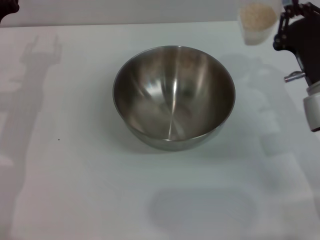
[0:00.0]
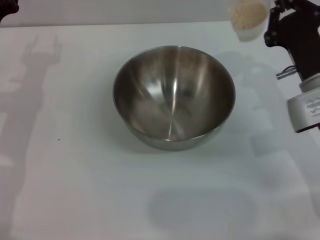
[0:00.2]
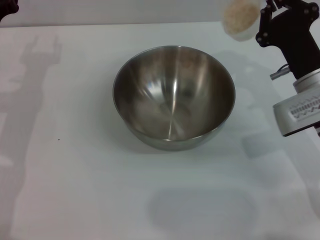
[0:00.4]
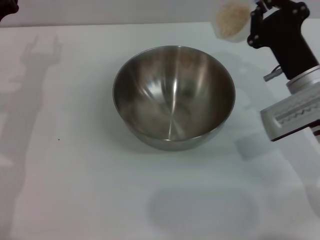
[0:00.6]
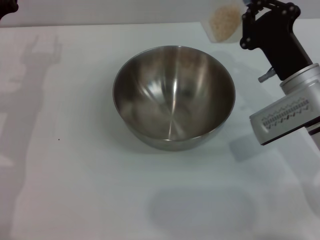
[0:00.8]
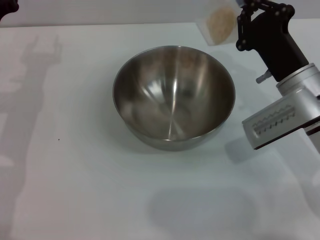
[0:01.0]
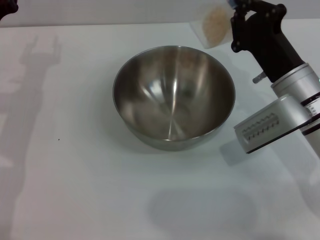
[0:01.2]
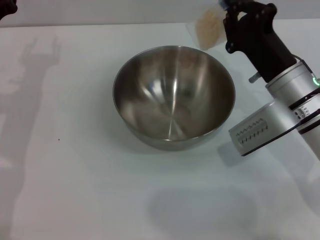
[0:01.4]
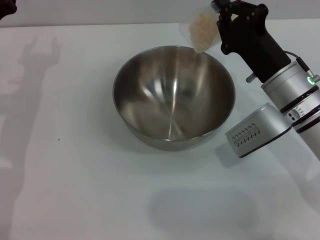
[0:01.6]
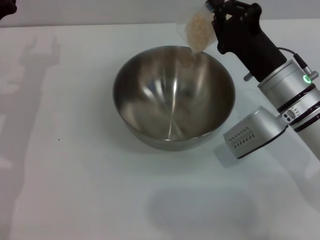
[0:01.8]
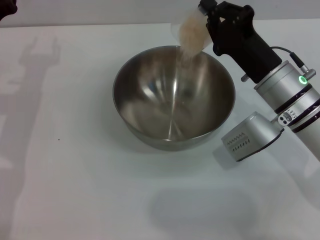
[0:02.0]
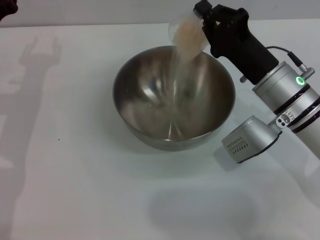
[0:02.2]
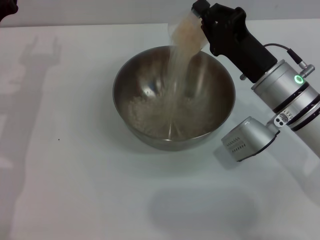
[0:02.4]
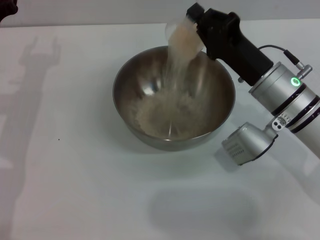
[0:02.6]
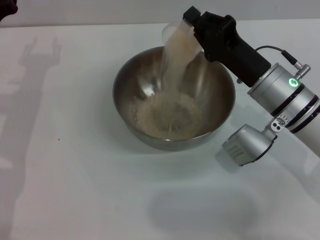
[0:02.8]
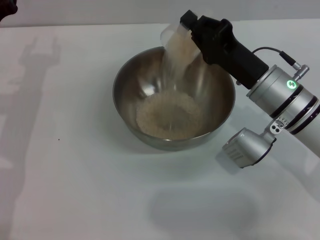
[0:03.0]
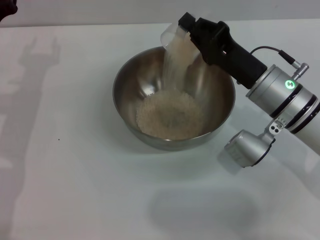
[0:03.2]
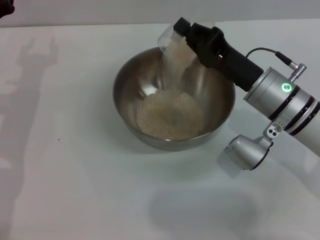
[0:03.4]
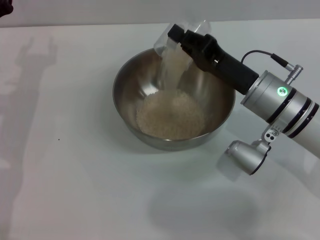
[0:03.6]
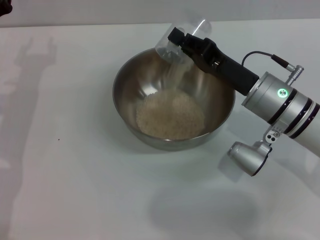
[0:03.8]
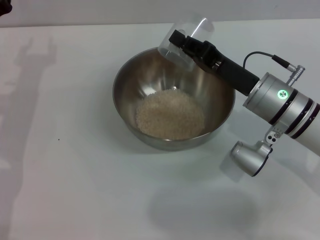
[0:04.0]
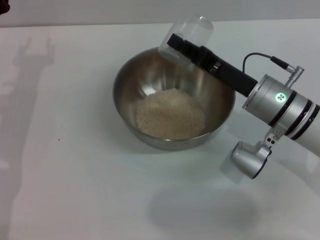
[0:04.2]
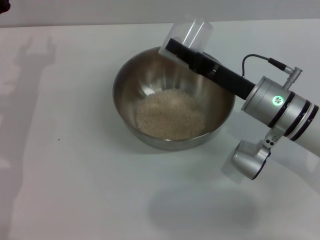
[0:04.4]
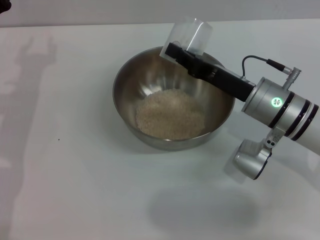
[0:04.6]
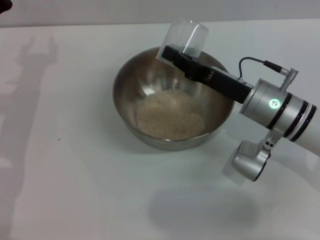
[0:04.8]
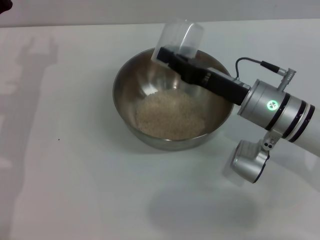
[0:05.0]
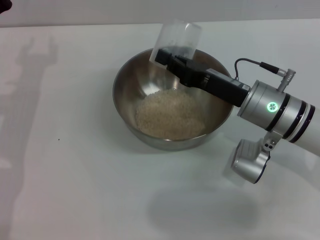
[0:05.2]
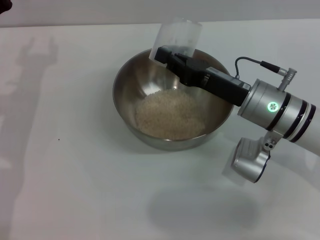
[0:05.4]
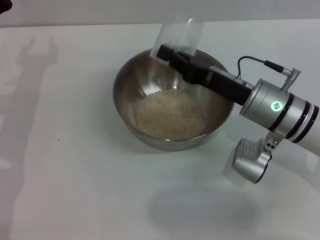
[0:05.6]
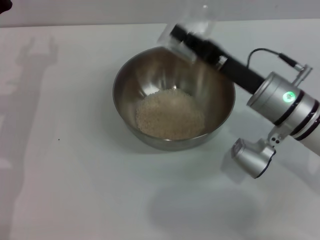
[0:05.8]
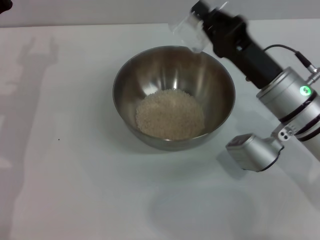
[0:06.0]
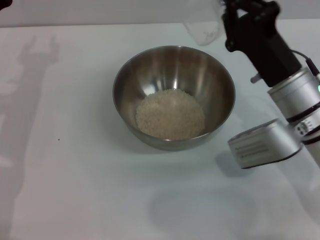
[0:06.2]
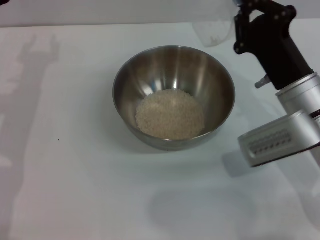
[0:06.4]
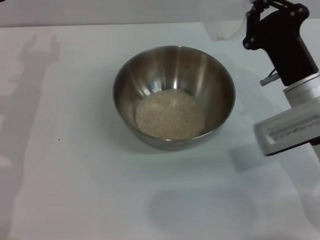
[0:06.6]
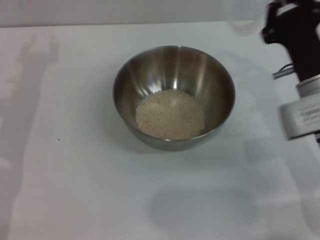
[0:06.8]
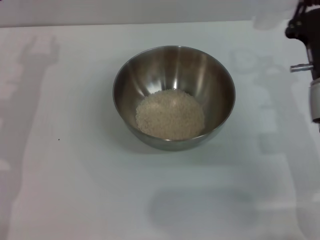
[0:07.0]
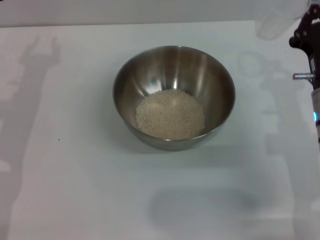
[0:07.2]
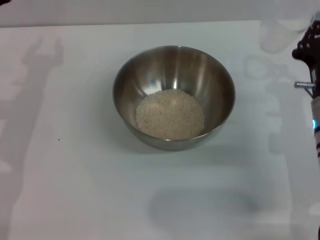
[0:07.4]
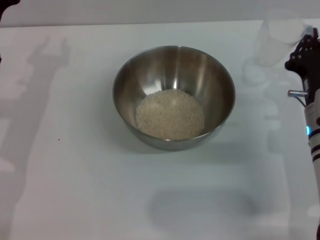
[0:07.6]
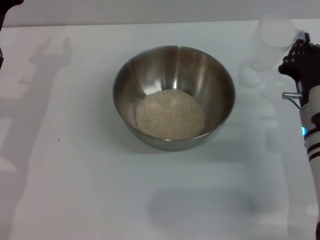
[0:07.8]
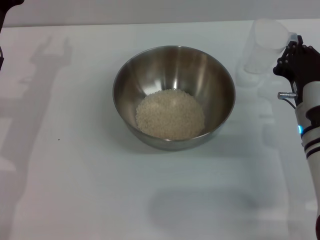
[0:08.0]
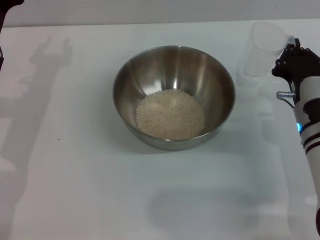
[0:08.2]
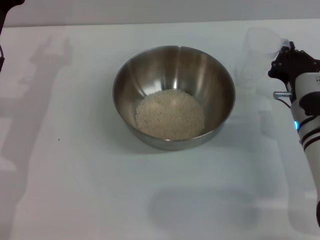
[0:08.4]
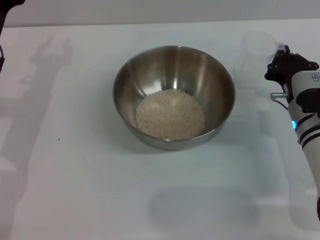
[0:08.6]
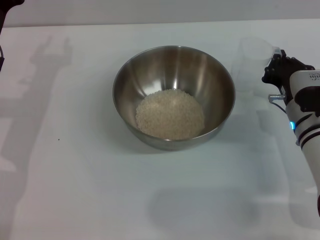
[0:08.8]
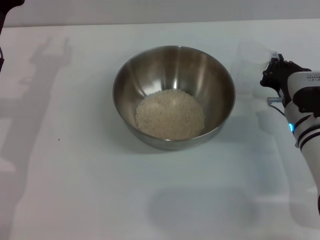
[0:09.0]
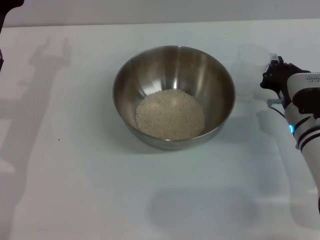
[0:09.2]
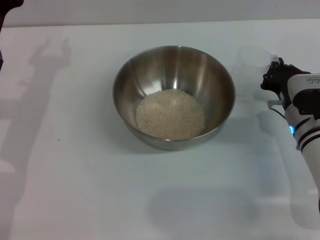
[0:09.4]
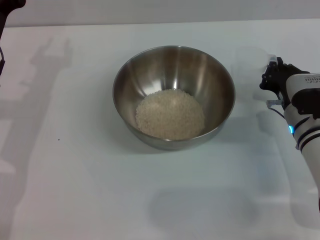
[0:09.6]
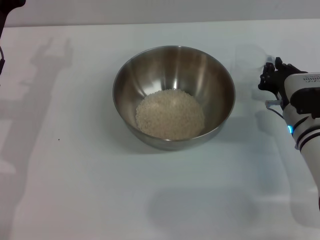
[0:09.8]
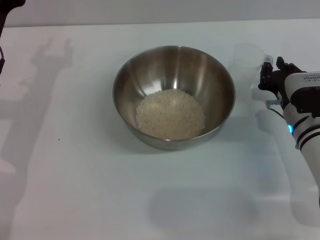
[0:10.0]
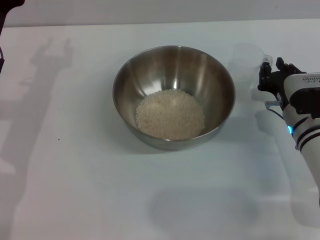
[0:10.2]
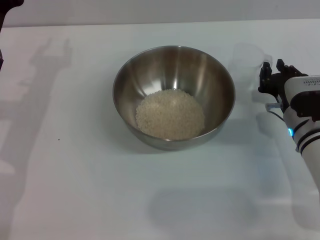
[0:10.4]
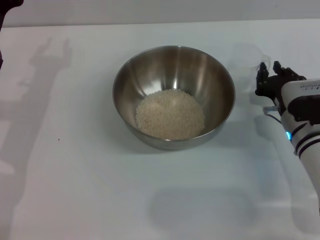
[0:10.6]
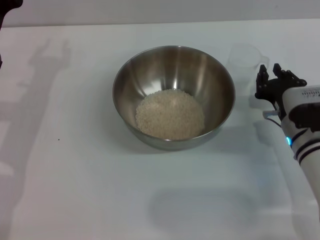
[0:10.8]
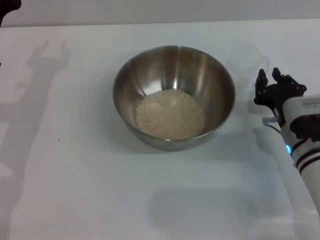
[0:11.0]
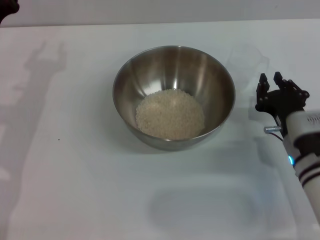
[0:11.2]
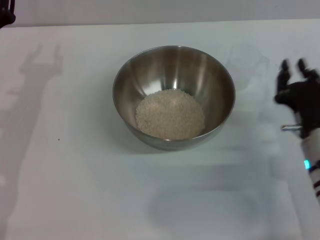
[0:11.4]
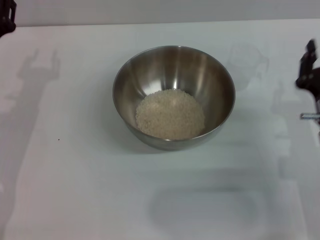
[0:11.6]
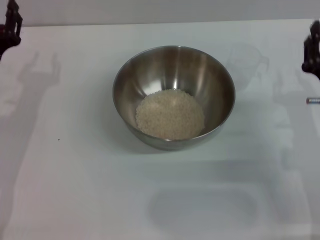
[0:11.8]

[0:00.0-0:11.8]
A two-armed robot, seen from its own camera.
Task of the whole recording: Place the bowl in the middle of the table with one hand and pour the rice from the grain cup into it with the other hand.
Step, 0:00.0 to 0:04.0: Pour the rice from the cup into the bowl with the right gripper.
Step, 0:04.4 to 0:10.8: Place the cup on the table with the right gripper.
0:06.0 to 0:07.4: The right gripper moves some 5 cm.
0:07.4 to 0:08.8: The right gripper shifts by approximately 5 cm.
0:08.8 to 0:10.4: Both grippers stay about where they are.
0:10.4 to 0:11.8: The right gripper heads backward, covering approximately 5 cm.

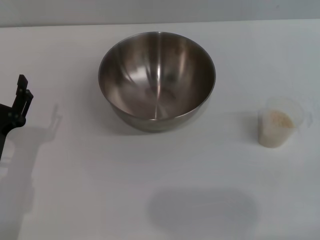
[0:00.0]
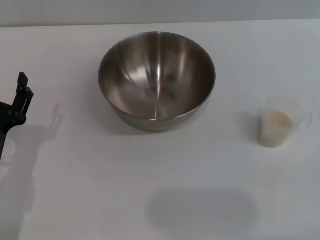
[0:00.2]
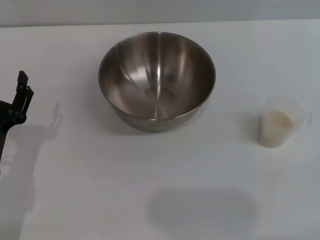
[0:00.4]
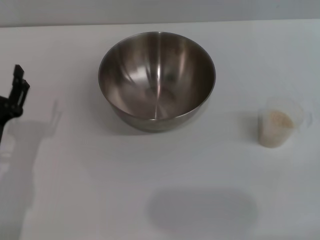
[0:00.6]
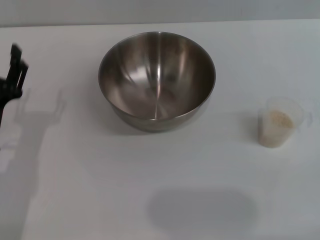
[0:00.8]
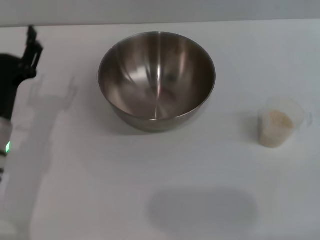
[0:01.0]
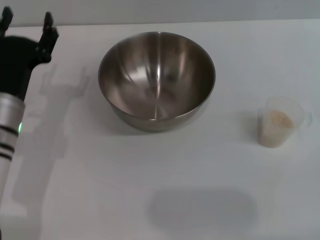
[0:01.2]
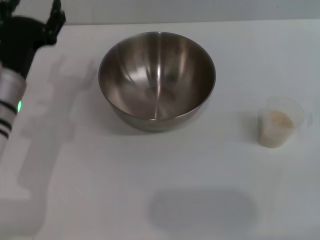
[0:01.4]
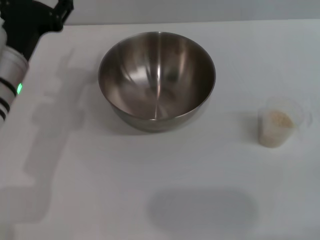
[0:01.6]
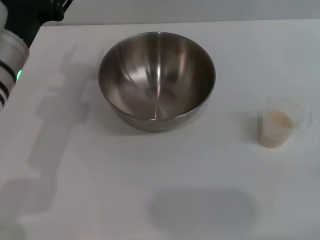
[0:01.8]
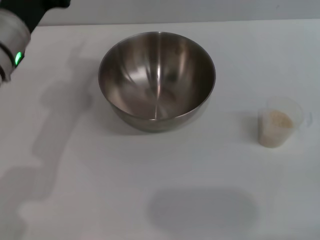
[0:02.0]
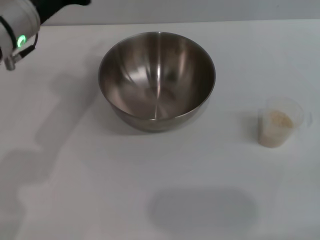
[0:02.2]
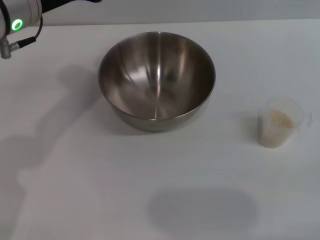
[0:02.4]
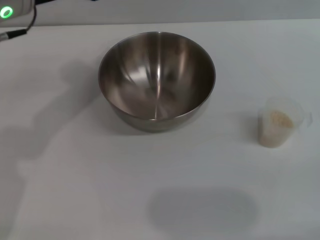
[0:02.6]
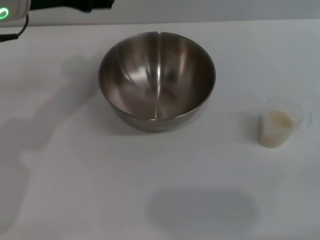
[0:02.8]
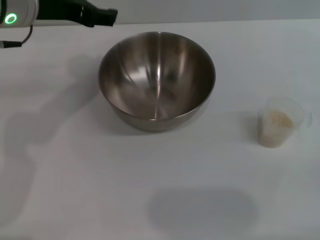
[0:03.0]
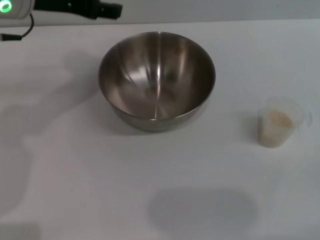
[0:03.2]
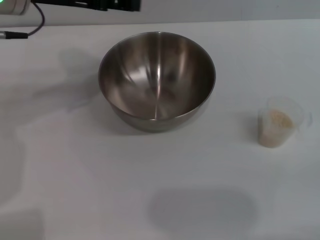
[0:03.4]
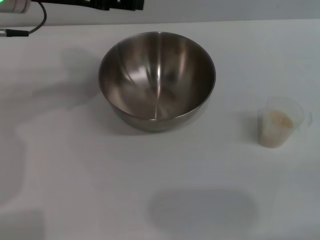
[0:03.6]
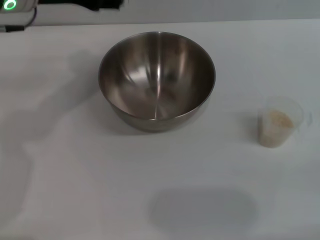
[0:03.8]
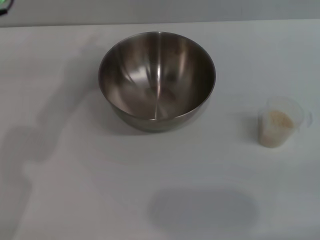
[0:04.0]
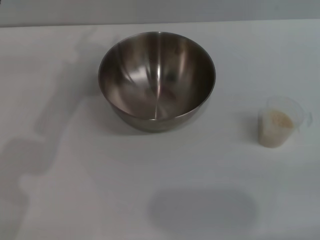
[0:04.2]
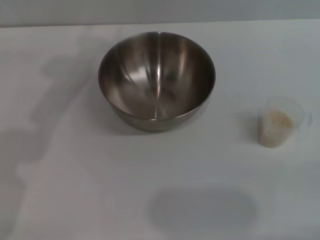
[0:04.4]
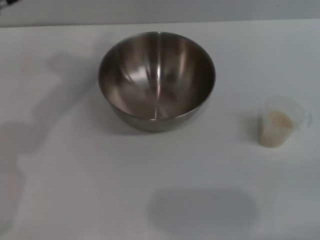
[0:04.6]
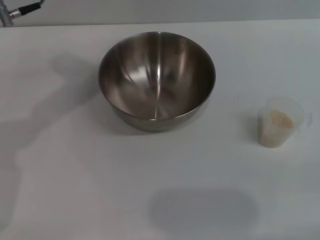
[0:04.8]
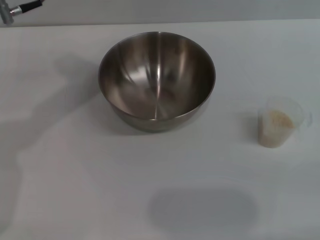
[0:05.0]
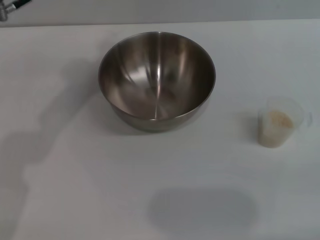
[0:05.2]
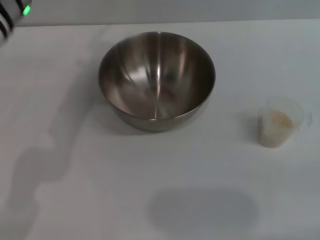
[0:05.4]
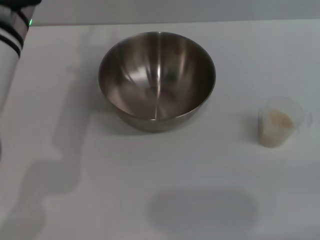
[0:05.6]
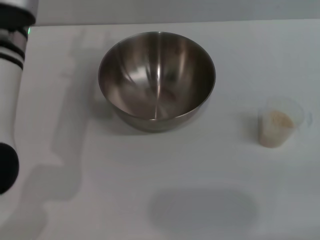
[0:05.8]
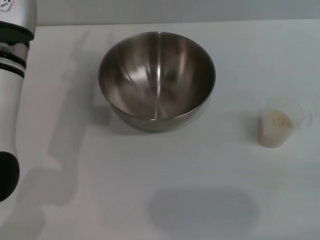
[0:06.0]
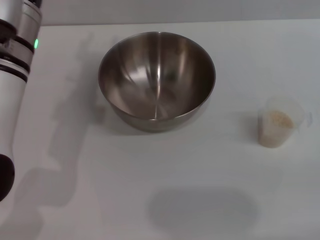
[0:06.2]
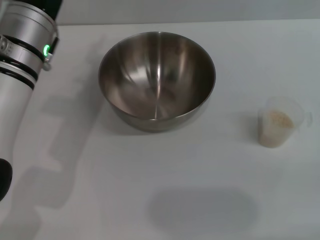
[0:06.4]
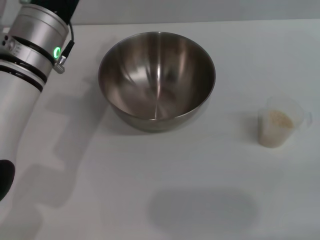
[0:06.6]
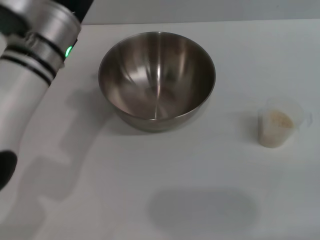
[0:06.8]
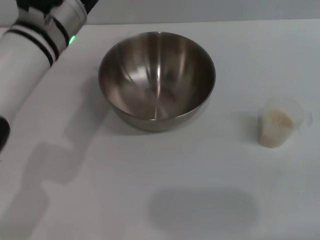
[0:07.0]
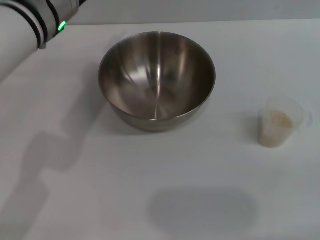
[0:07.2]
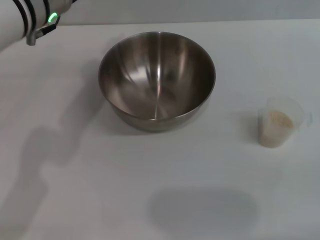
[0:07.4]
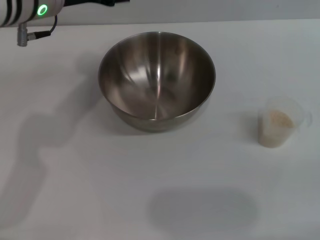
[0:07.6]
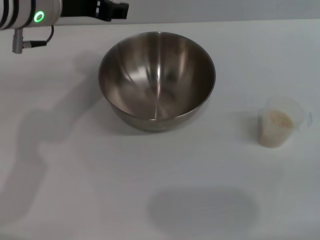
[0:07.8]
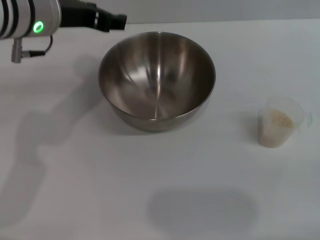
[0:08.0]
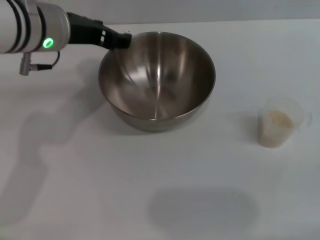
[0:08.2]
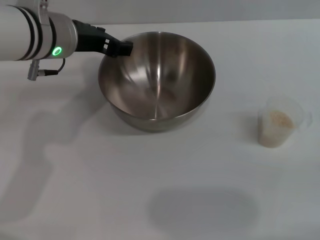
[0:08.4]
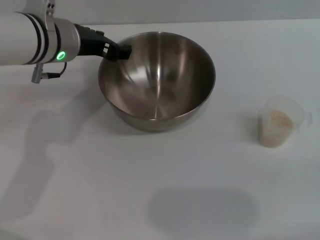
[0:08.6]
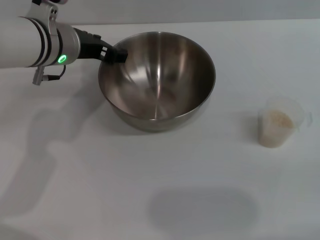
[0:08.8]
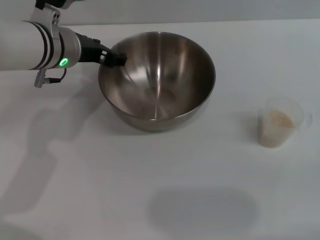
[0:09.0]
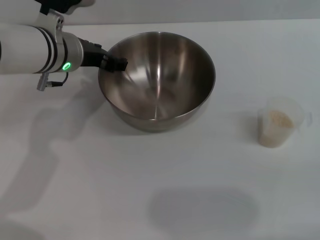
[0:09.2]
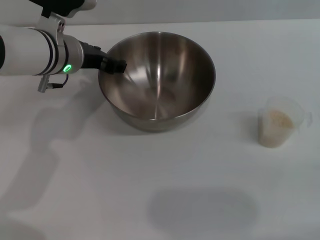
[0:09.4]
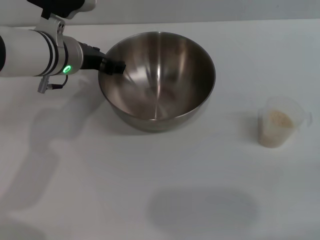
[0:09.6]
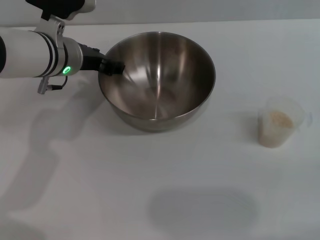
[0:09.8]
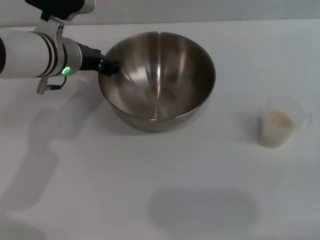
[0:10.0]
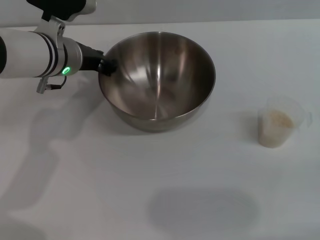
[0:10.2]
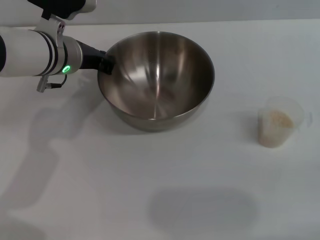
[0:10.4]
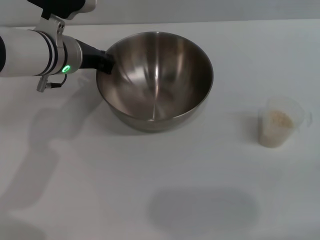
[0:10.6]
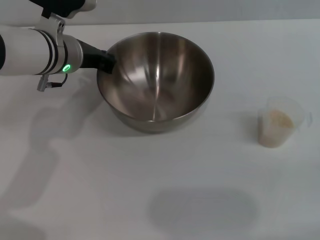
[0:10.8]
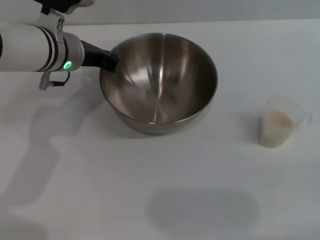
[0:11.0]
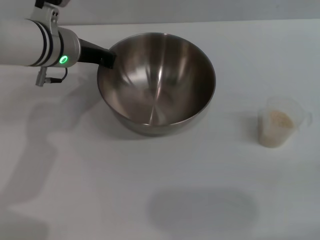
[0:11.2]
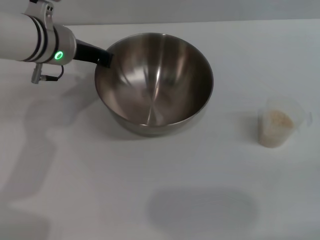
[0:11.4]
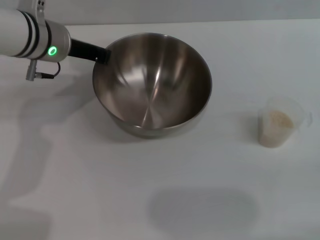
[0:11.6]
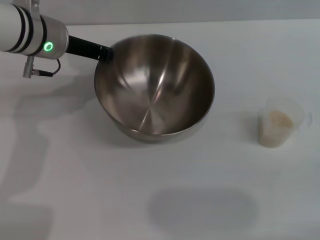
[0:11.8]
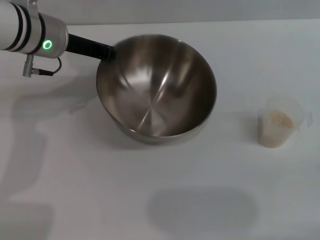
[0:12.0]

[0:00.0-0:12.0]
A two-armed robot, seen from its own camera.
Task of the whole recording: Place the bowl in the middle of the table with one hand and pour the rice from the grain cup into it with the other hand.
0:00.0 to 0:01.6: The left gripper moves upward, forward and to the right, roughly 15 cm.
0:01.6 to 0:03.0: The left gripper travels upward by approximately 10 cm.
0:04.4 to 0:06.0: The left gripper moves downward, roughly 10 cm.
0:06.0 to 0:07.6: The left gripper is displaced upward by approximately 5 cm.
0:07.6 to 0:09.0: The left gripper moves downward, about 10 cm.
0:09.0 to 0:10.4: The left gripper closes its fingers.
0:10.4 to 0:12.0: The left gripper closes its fingers.
